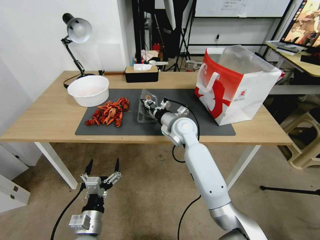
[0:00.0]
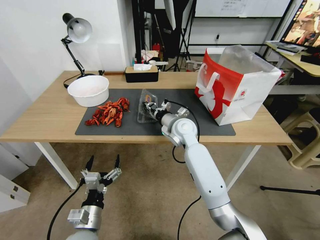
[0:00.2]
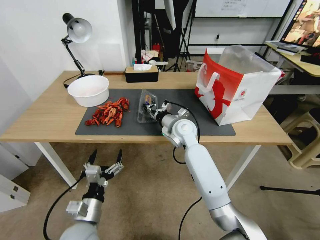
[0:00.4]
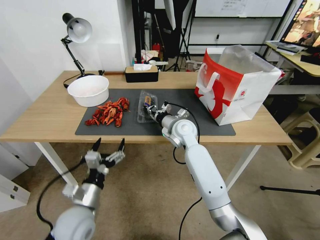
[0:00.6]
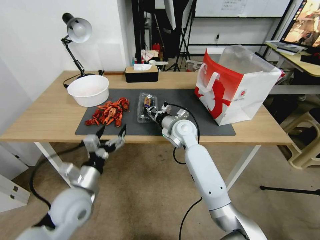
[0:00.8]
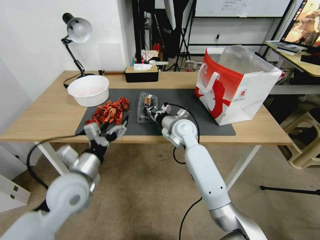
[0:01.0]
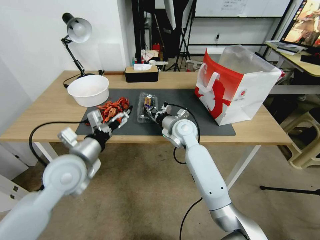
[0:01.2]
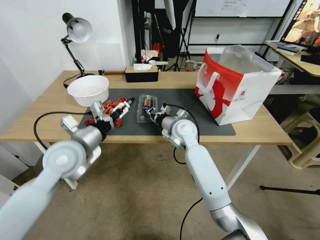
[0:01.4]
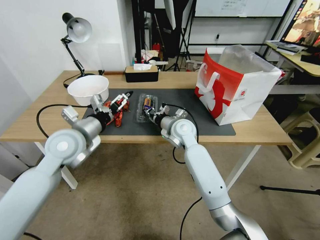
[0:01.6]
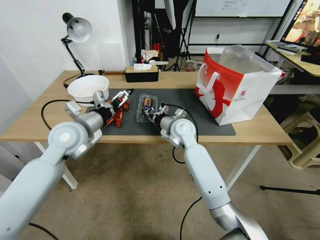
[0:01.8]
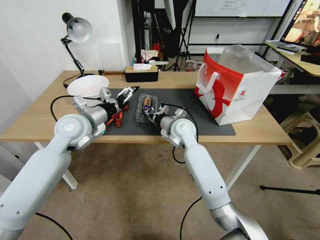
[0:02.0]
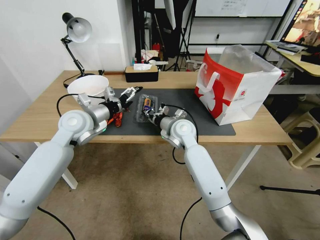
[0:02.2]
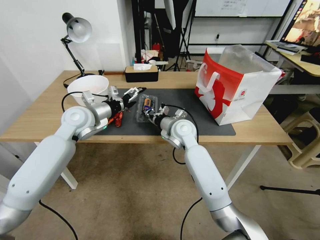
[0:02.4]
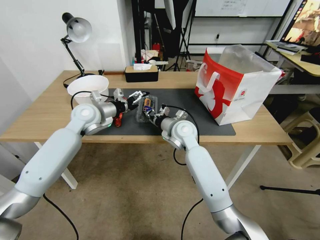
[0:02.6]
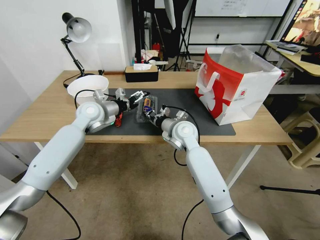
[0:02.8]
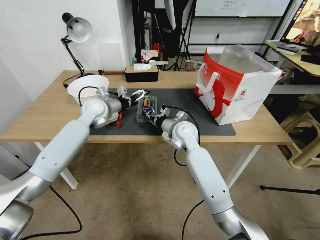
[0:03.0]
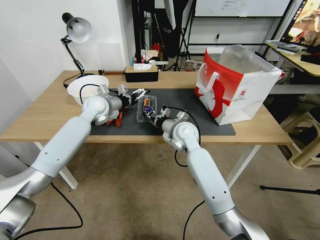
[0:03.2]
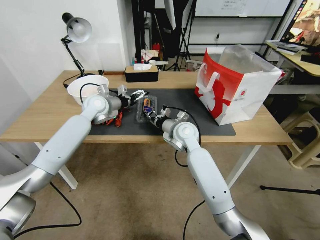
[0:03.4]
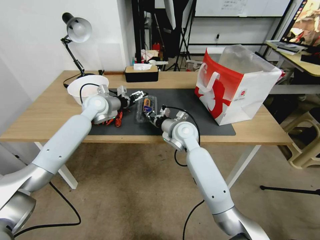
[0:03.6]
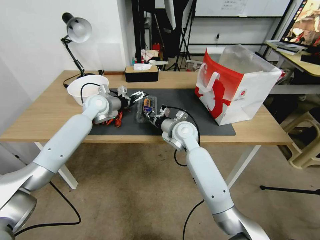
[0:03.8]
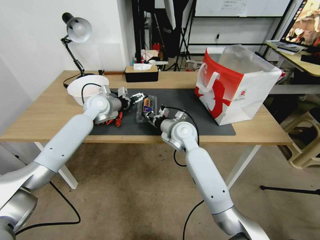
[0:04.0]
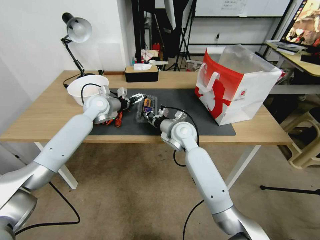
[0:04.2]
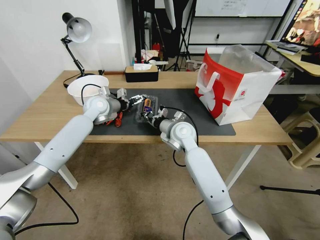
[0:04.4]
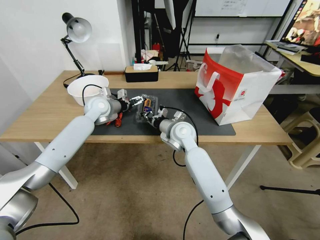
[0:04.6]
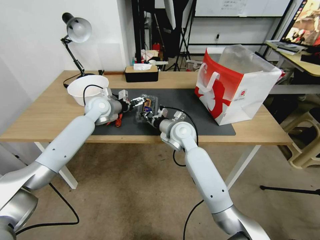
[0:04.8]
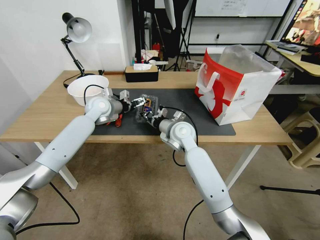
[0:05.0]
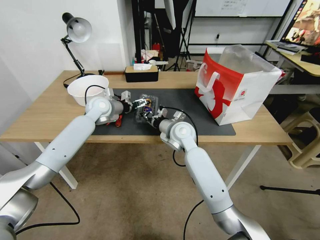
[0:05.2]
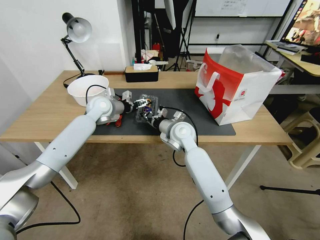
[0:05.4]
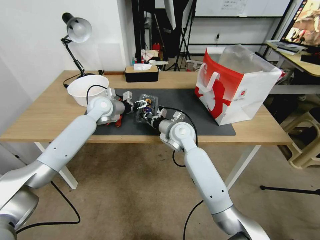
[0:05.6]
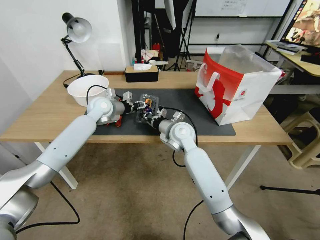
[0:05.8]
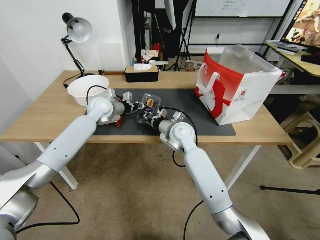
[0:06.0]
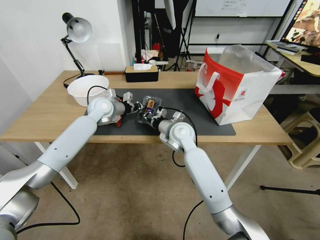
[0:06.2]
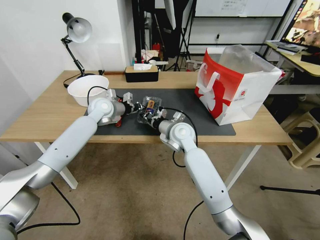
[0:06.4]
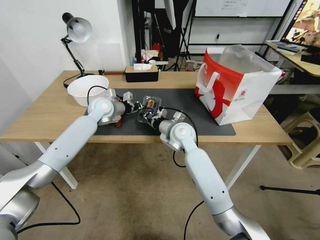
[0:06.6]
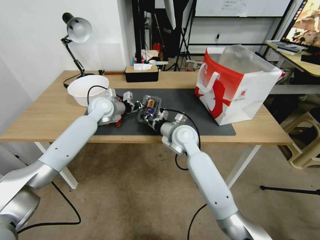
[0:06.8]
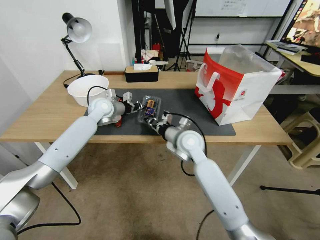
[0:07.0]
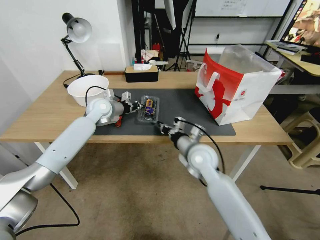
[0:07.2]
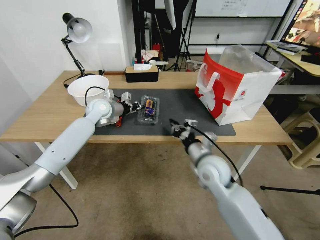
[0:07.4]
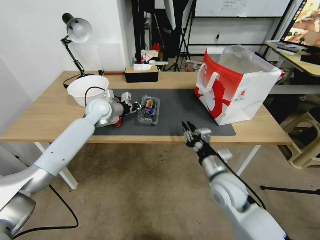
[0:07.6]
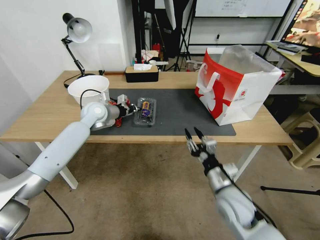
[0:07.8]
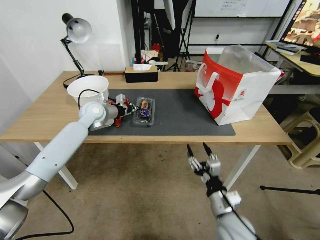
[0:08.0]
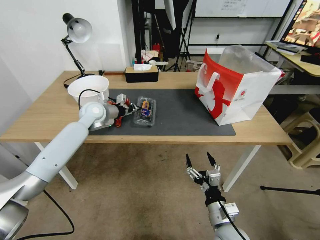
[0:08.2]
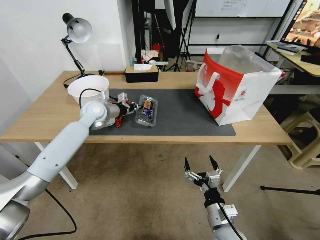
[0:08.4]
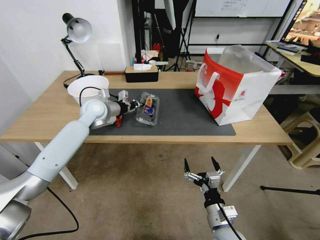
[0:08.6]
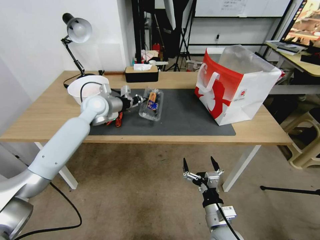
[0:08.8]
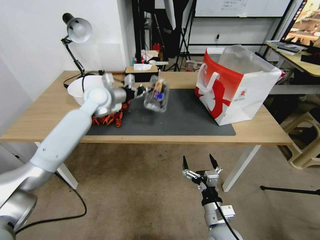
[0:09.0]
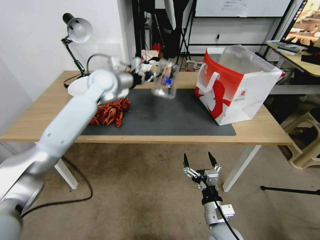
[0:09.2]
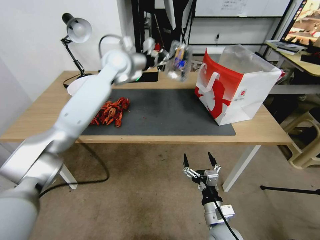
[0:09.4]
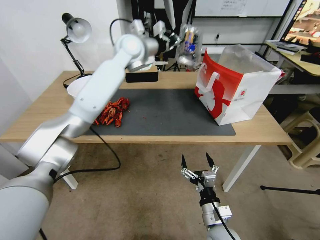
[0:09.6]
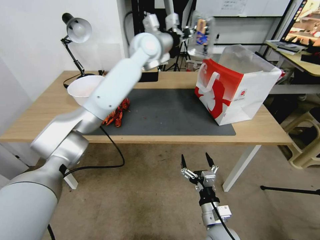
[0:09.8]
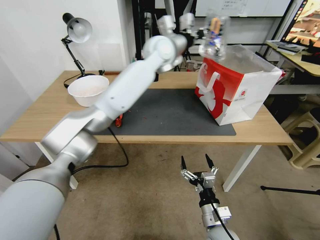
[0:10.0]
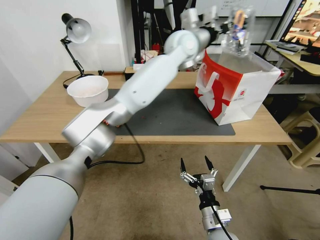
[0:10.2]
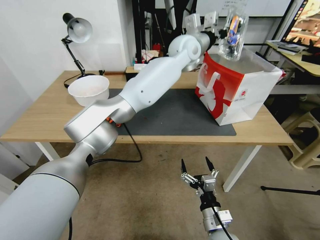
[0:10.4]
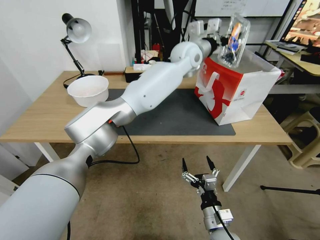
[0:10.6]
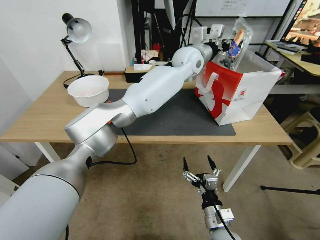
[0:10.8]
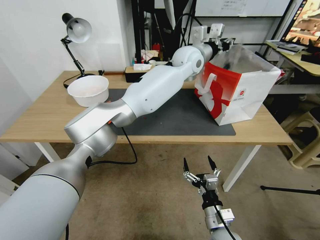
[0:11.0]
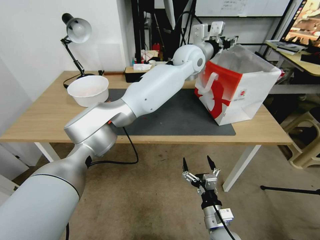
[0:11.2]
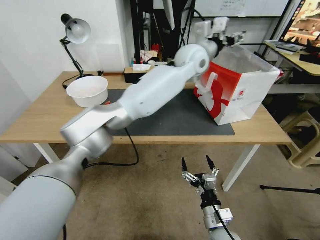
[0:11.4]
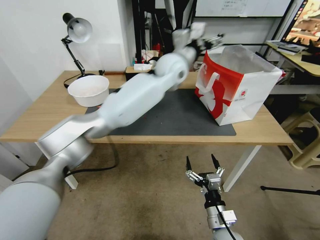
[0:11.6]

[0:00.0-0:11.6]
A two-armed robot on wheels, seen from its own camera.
Task of the whole recording: Close the takeout container lid, then place the container into the takeout bag.
0:00.0 to 0:01.4: The left gripper is displaced upward and forward by about 30 cm.
0:01.4 to 0:02.8: The left gripper shifts some 20 cm forward.
0:02.8 to 0:04.4: The left gripper travels forward by some 5 cm.
0:04.4 to 0:05.8: The left gripper closes its fingers.
0:05.8 to 0:07.2: The left gripper closes; the right gripper heads backward and to the right, covering about 10 cm.
0:07.2 to 0:08.8: The right gripper moves backward and downward, approximately 25 cm, and opens up.
0:08.8 to 0:10.2: The left gripper is displaced to the right and upward by about 35 cm.
0:10.2 to 0:11.6: The left gripper heads downward, covering approximately 5 cm, and opens its fingers.

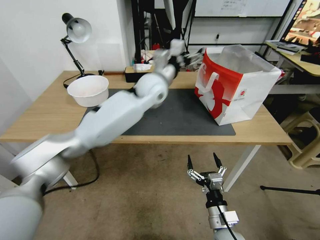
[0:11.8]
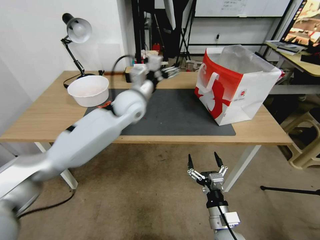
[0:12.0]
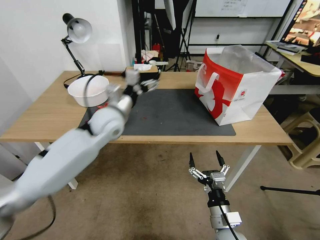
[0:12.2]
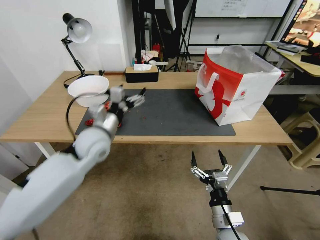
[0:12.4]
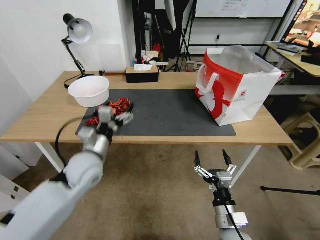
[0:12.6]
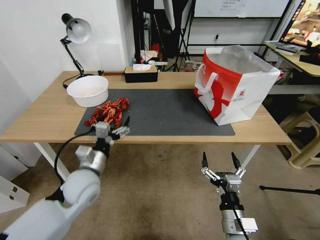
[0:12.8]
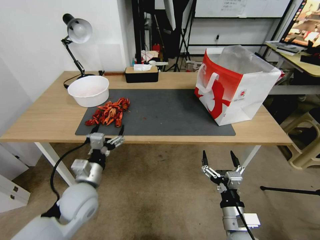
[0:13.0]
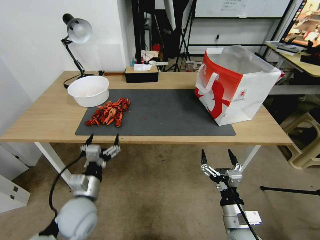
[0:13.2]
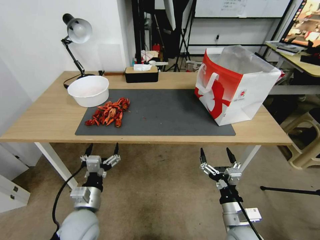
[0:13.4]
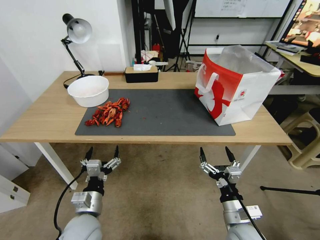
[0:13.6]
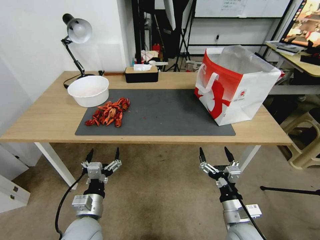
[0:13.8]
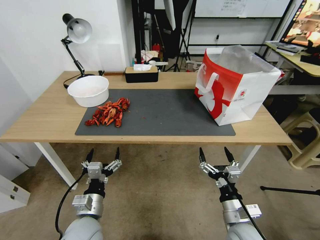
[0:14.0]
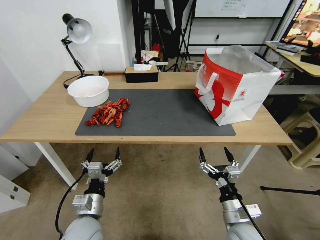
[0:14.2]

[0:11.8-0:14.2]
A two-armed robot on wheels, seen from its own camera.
Task of the whole recording: Close the takeout container lid, then place the container into the takeout bag.
0:11.8 to 0:13.0: The left gripper moves backward, downward and to the left, approximately 40 cm.
0:13.0 to 0:14.2: The left gripper is displaced backward and downward by some 10 cm.
